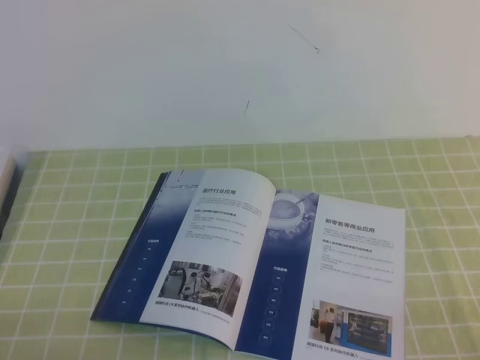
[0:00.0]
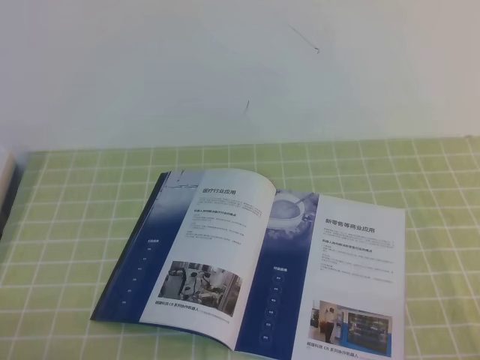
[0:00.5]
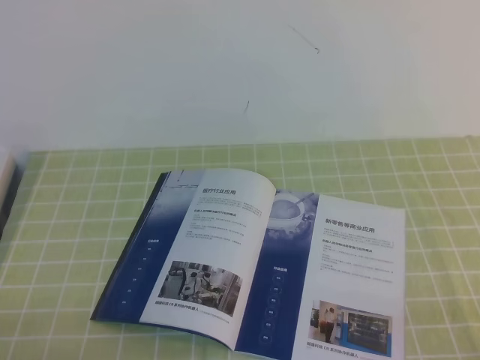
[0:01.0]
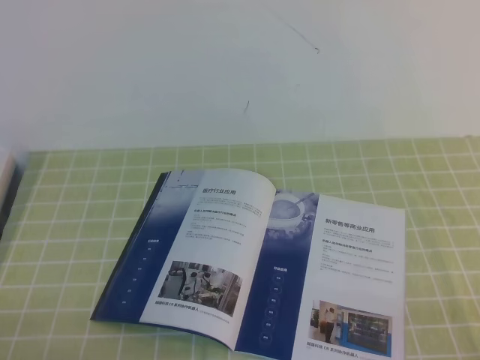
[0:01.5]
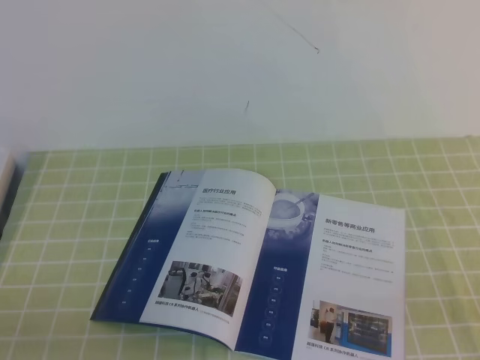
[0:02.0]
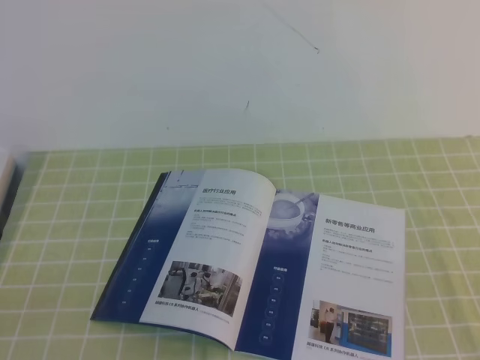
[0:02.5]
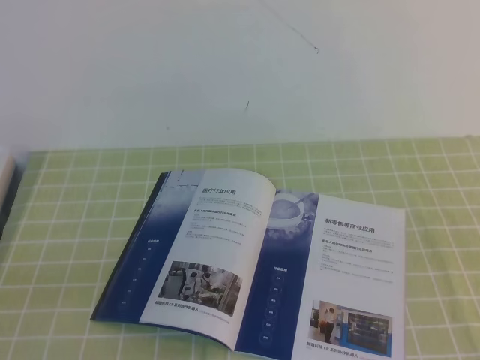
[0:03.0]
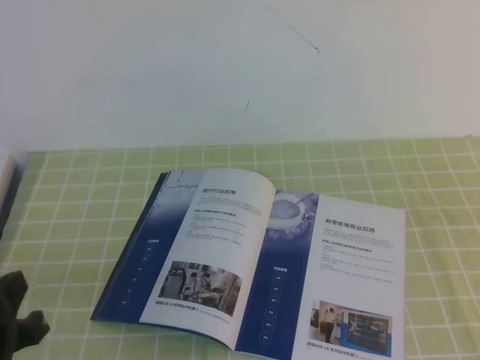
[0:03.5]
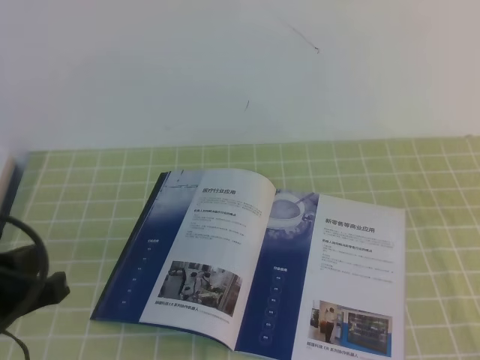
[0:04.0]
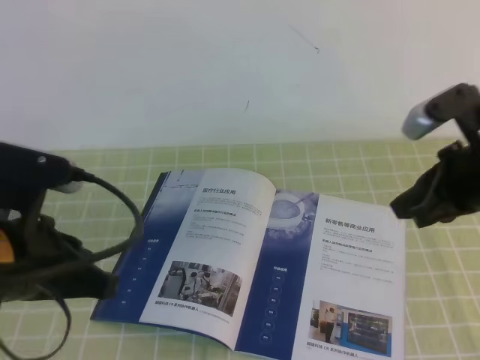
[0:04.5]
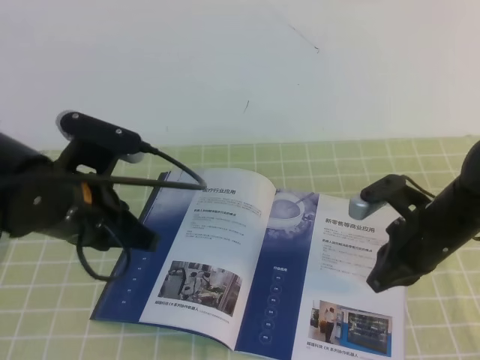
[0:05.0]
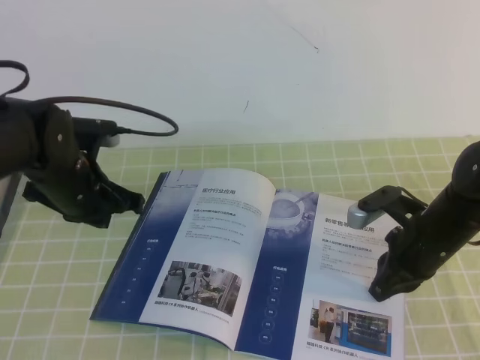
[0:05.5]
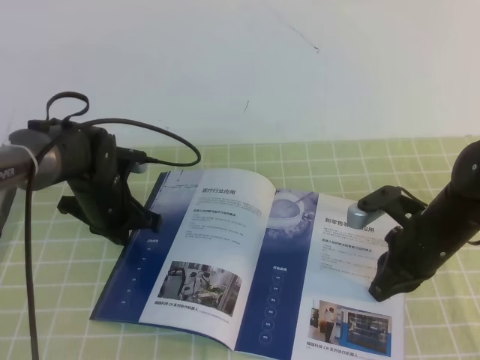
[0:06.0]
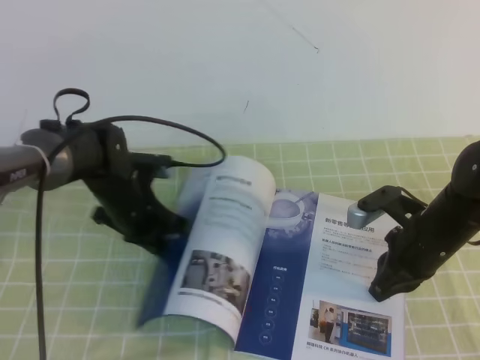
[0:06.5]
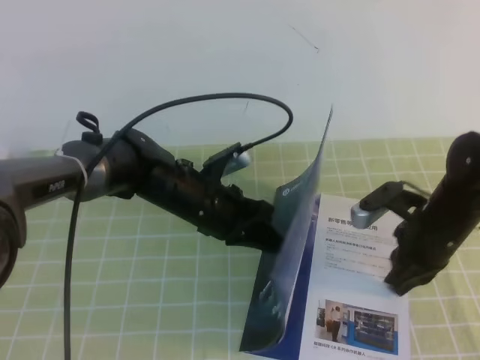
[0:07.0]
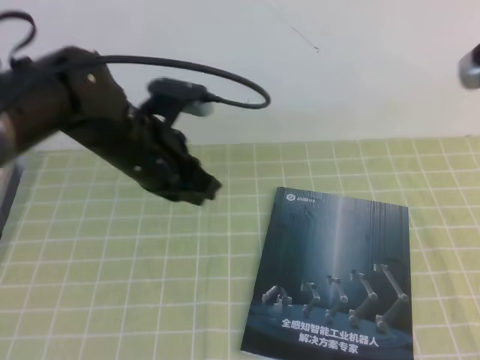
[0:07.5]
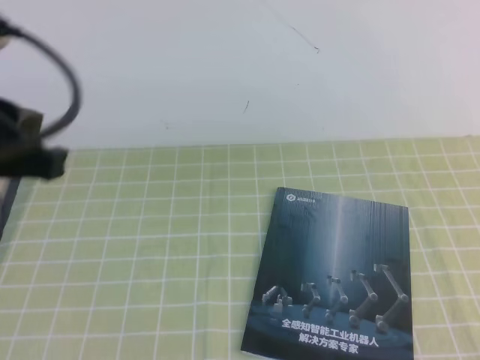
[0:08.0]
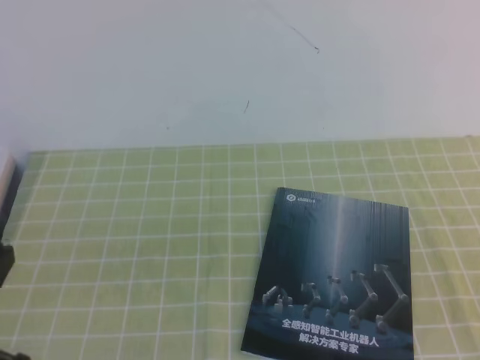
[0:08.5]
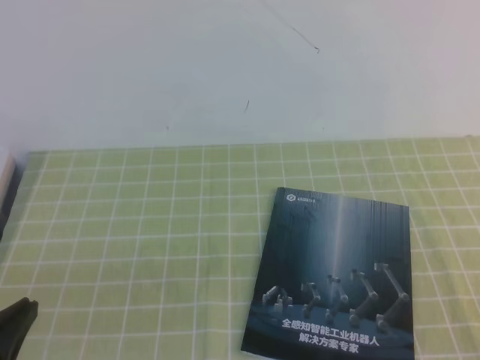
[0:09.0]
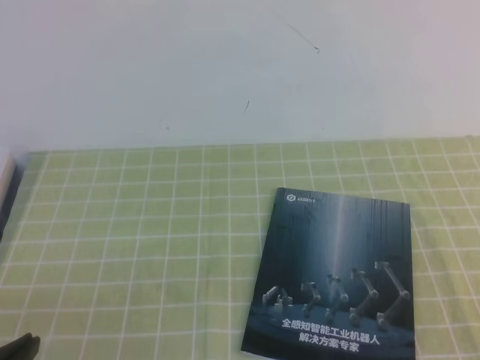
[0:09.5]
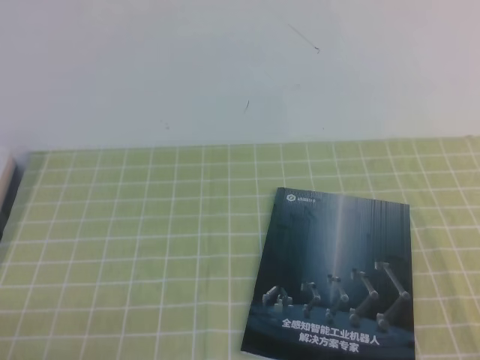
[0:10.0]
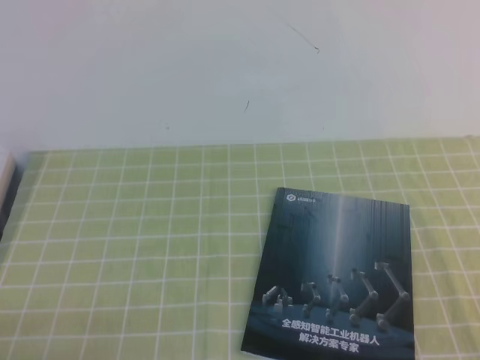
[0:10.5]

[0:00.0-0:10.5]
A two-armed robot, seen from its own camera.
Task of the whole recording: on the green tablecloth, hold the book with one hand and close it with the other.
0:02.0 to 0:04.0: The left gripper shifts about 10 cm forward and upward.
0:04.0 to 0:06.5: The left gripper travels forward and downward by some 25 cm; the right gripper heads downward, forward and to the left, covering about 25 cm.
0:06.5 to 0:08.5: The grippers both shift backward and upward by roughly 30 cm.
